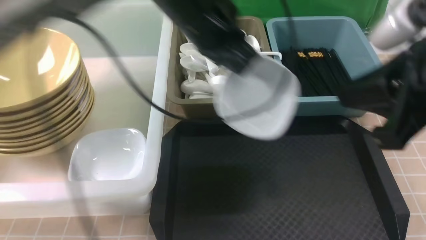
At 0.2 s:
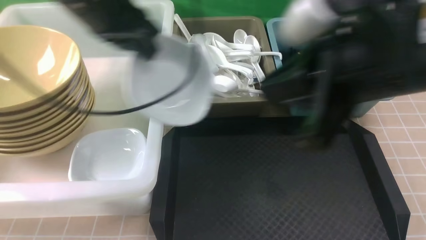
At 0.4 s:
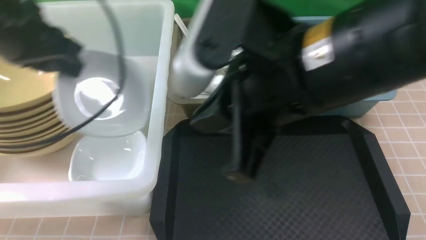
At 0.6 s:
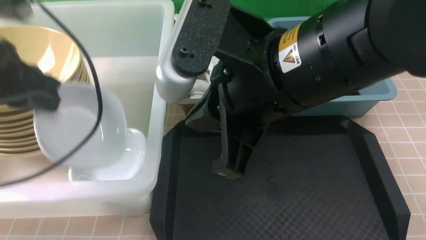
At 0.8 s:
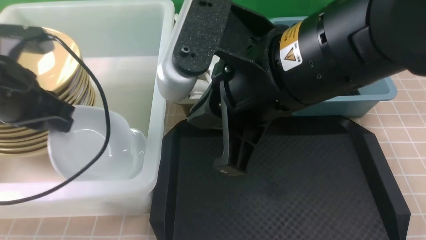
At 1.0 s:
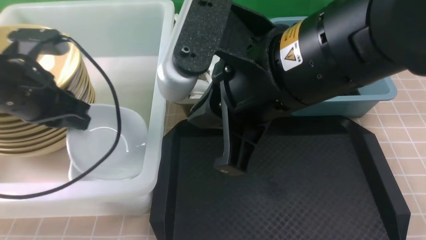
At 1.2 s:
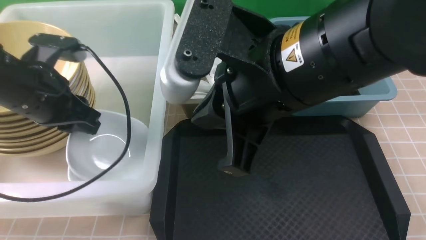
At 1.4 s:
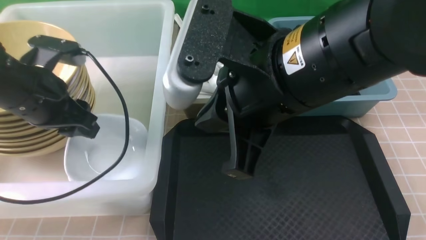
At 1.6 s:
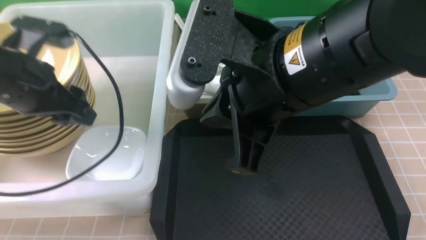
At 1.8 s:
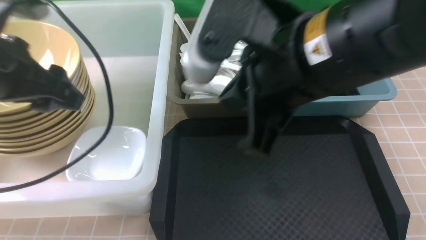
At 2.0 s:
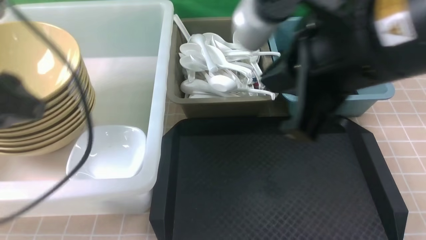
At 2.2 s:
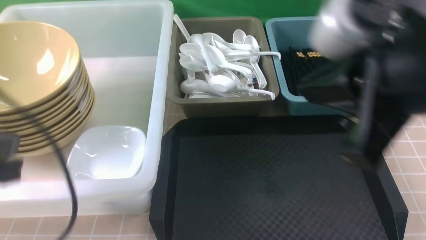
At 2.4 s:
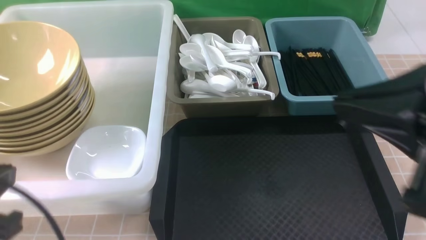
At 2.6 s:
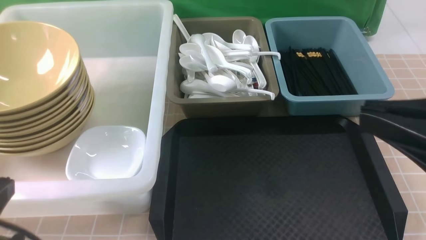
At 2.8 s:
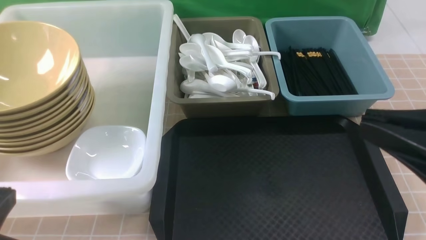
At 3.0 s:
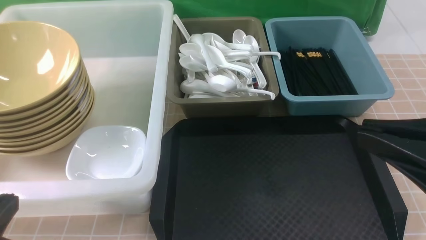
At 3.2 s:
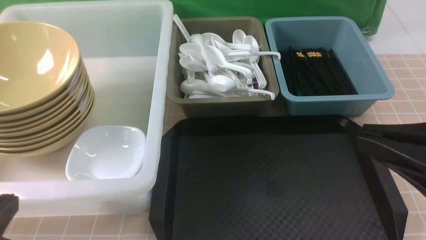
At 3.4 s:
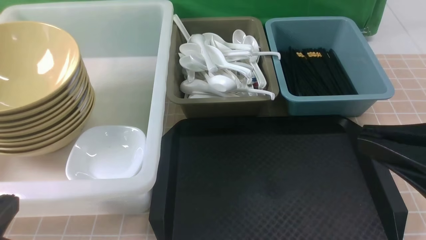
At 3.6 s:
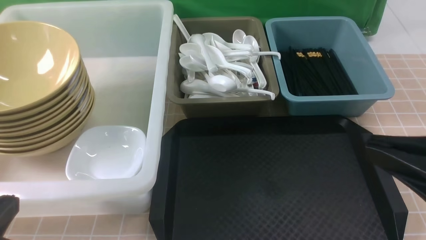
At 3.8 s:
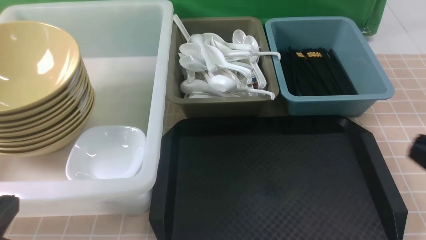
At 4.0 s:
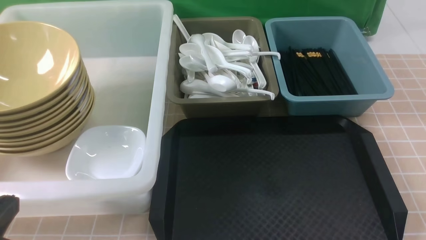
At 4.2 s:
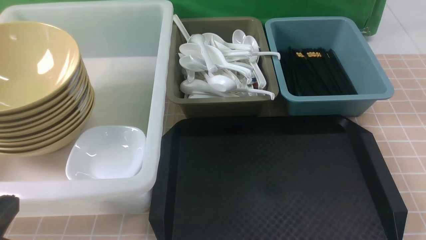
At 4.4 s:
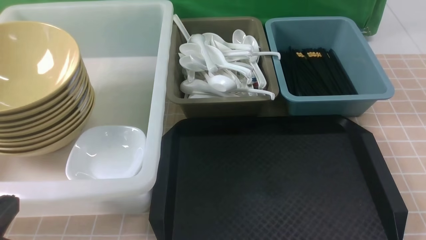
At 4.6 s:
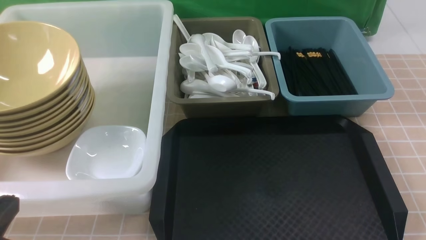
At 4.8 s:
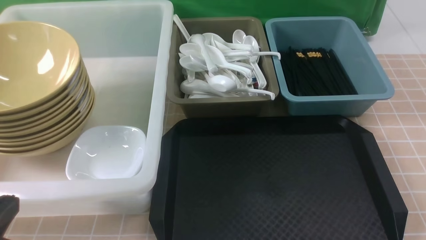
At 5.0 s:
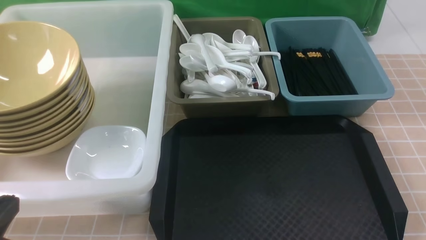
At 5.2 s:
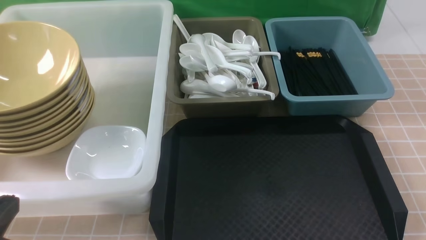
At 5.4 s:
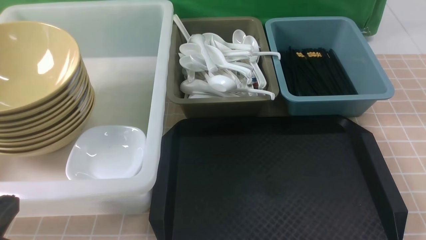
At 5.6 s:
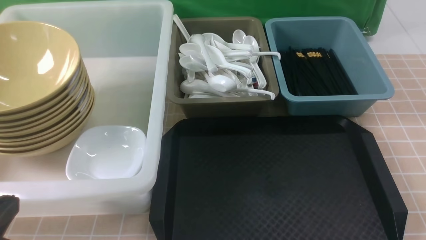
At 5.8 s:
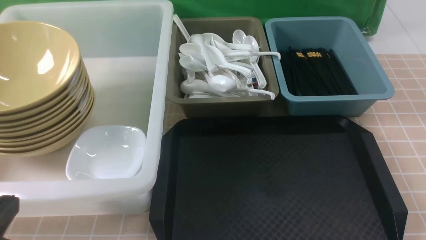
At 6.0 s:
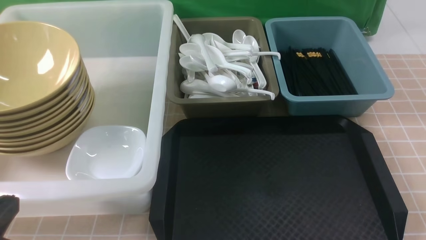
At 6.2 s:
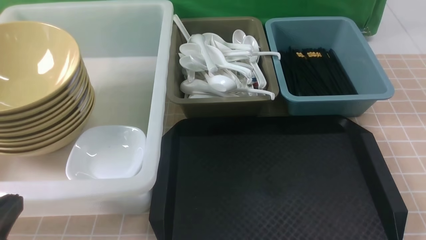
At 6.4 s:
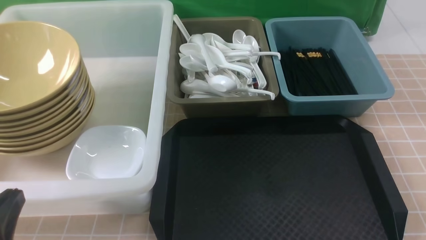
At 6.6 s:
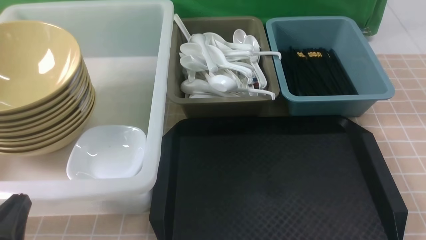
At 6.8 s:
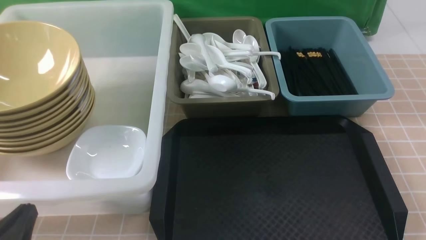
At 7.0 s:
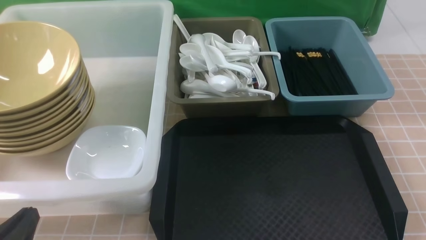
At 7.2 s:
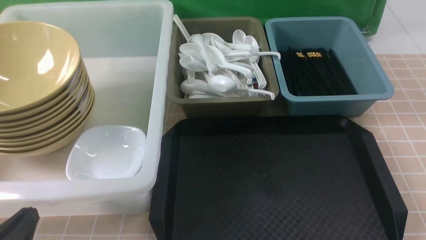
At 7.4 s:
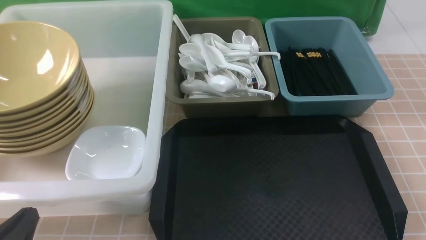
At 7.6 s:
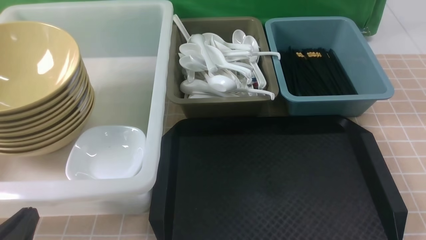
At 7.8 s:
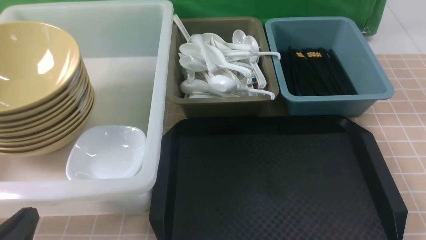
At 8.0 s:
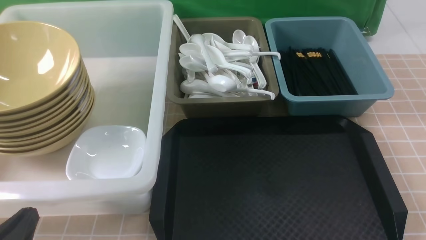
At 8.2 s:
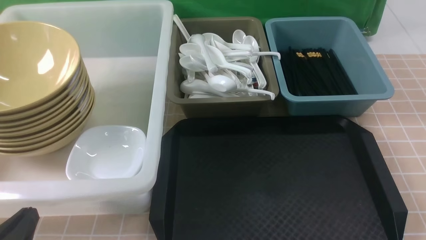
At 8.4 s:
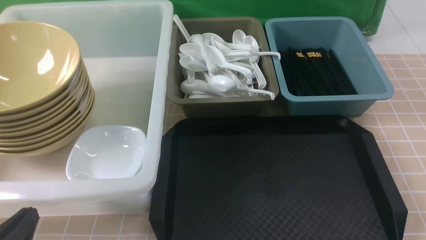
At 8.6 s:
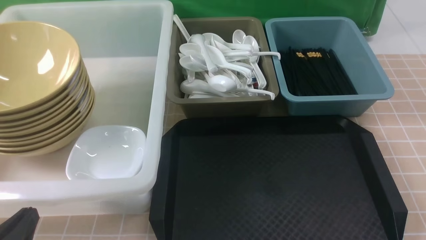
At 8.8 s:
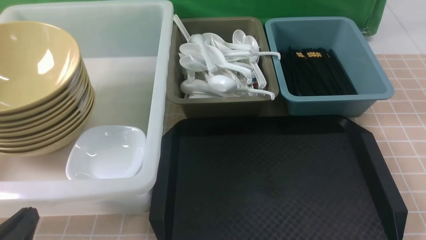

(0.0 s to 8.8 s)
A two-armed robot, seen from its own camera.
Task of the whole recording: on brown table put chopsticks spoon bowls plates into blue grey white boxes.
Step, 0.0 s - 1.6 s: use the left arm to put the plate into the large storage box on the left.
0.0 s - 1.4 s: The right gripper travels to the left by approximately 15 cm, while the left gripper travels to the left by approximately 25 cm, and opens its fingers.
1.4 s - 3.0 s: The left gripper is displaced backward by approximately 25 cm, and closes, while the right gripper moves to the right and backward, some 20 cm.
3.0 s - 4.4 s: The right gripper goes roughly 20 cm downward and to the right.
5.8 s - 7.4 s: The left gripper shifts about 10 cm downward.
7.4 s - 8.8 s: Both grippers stay put.
